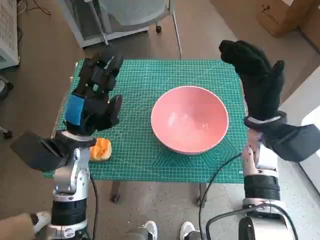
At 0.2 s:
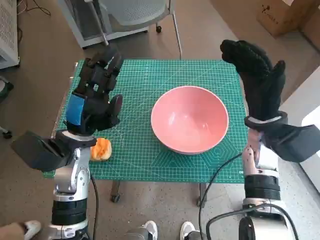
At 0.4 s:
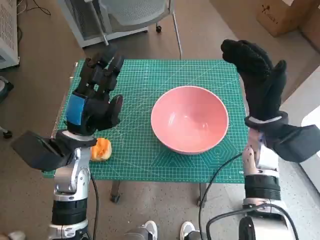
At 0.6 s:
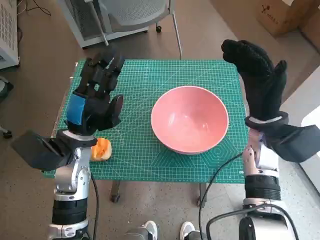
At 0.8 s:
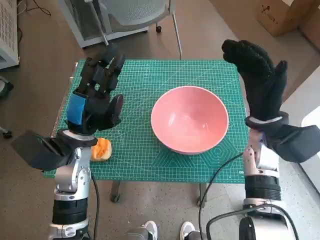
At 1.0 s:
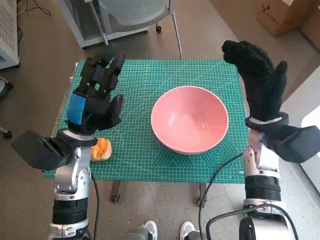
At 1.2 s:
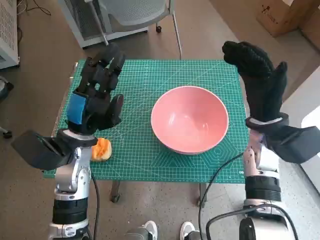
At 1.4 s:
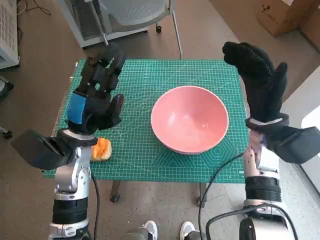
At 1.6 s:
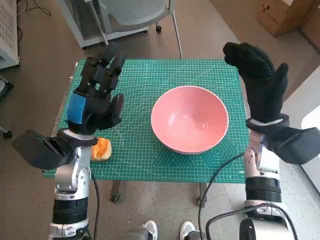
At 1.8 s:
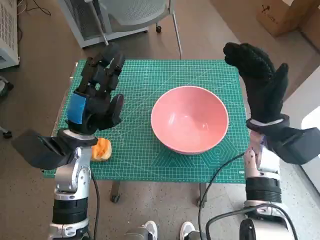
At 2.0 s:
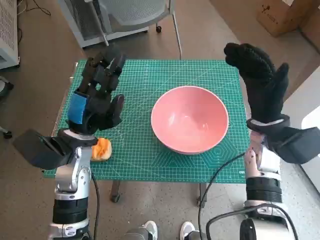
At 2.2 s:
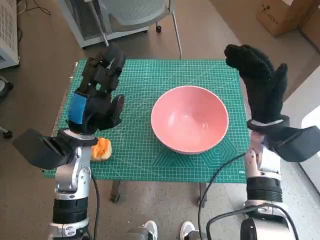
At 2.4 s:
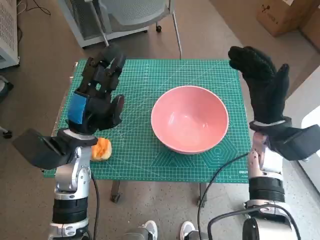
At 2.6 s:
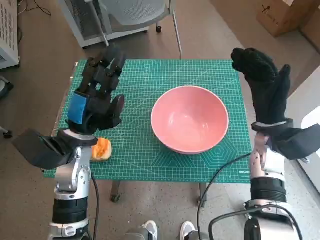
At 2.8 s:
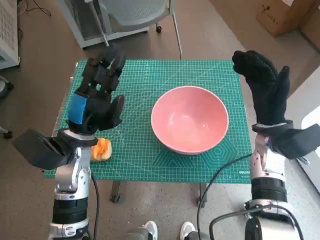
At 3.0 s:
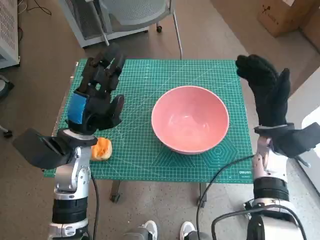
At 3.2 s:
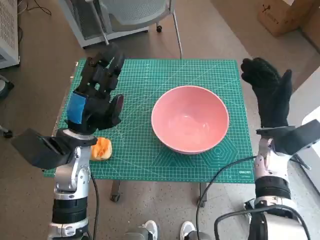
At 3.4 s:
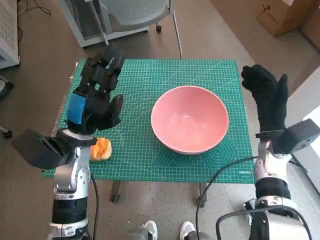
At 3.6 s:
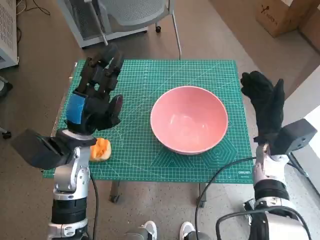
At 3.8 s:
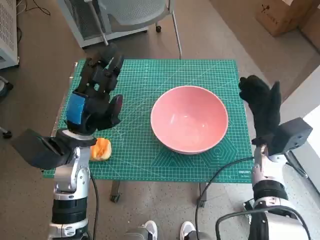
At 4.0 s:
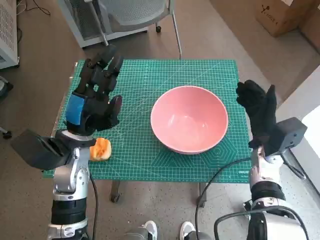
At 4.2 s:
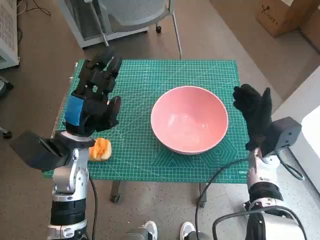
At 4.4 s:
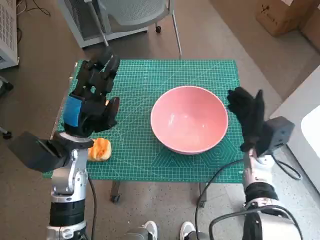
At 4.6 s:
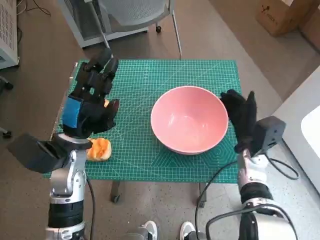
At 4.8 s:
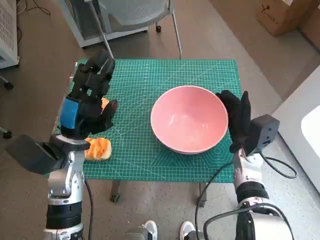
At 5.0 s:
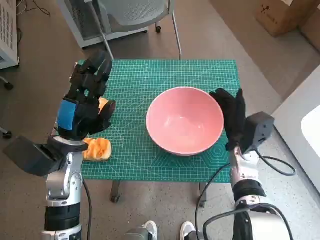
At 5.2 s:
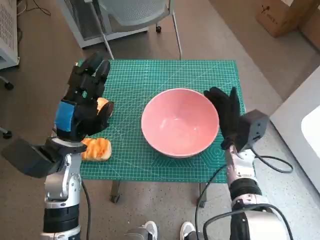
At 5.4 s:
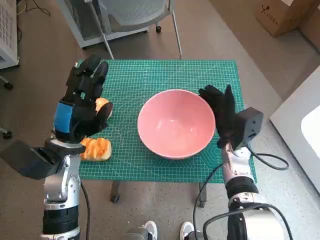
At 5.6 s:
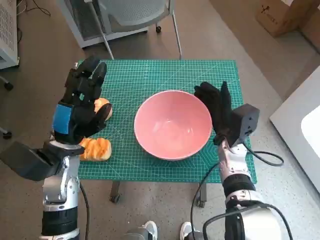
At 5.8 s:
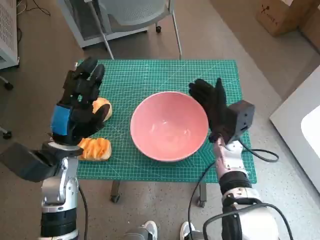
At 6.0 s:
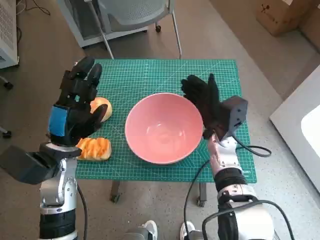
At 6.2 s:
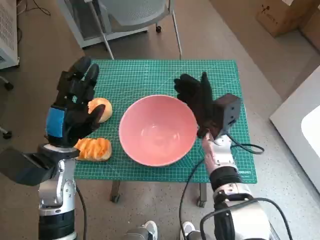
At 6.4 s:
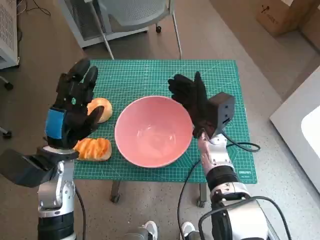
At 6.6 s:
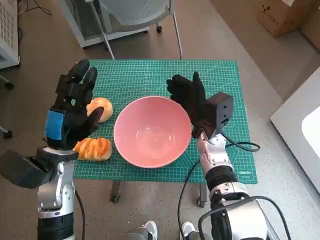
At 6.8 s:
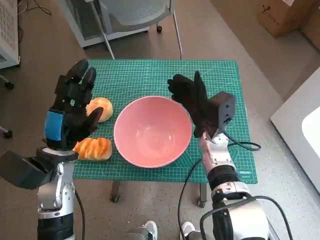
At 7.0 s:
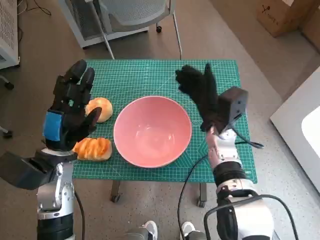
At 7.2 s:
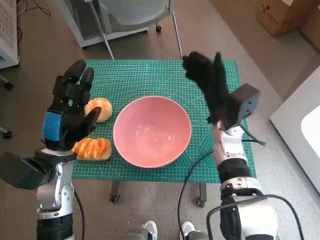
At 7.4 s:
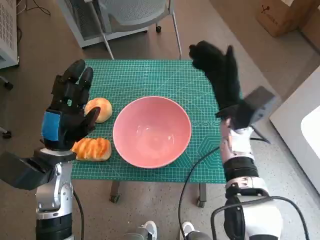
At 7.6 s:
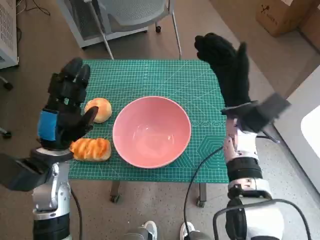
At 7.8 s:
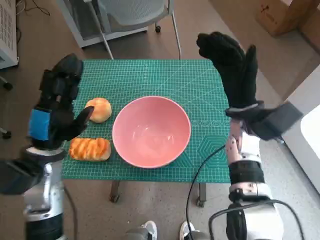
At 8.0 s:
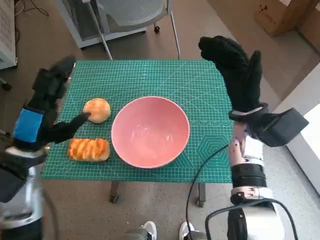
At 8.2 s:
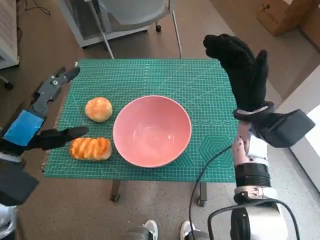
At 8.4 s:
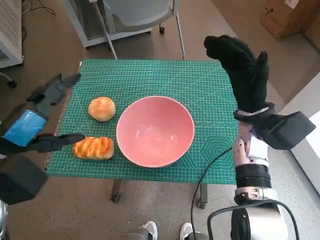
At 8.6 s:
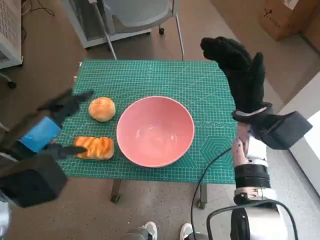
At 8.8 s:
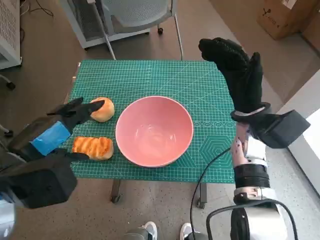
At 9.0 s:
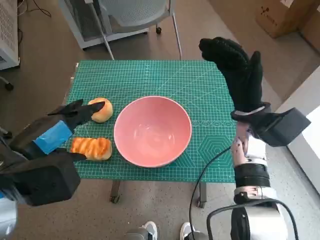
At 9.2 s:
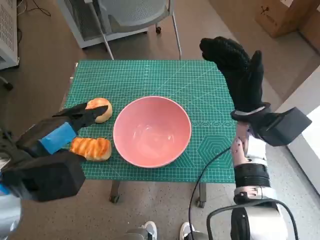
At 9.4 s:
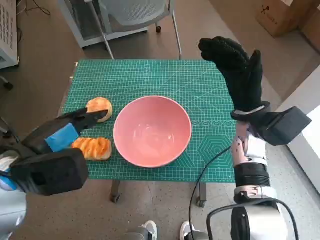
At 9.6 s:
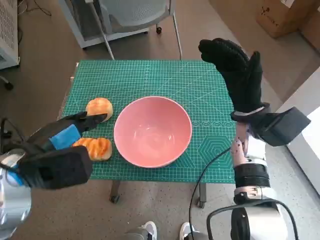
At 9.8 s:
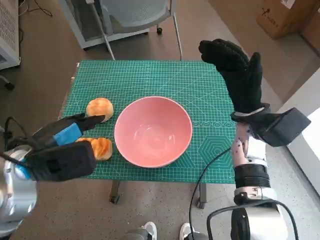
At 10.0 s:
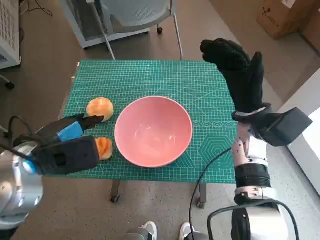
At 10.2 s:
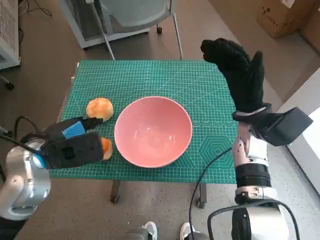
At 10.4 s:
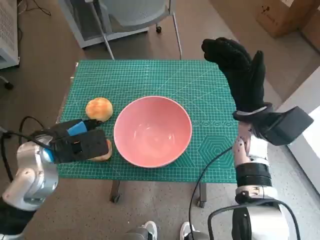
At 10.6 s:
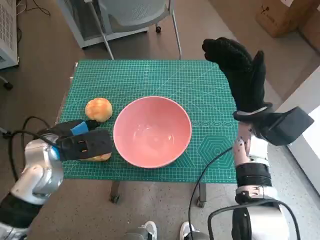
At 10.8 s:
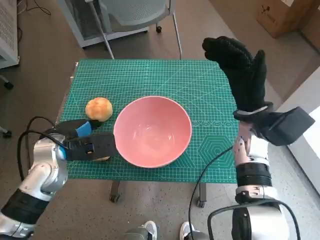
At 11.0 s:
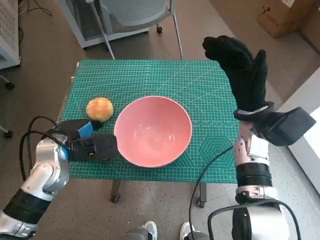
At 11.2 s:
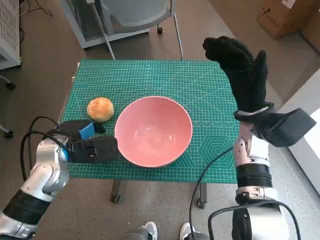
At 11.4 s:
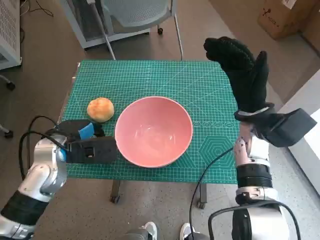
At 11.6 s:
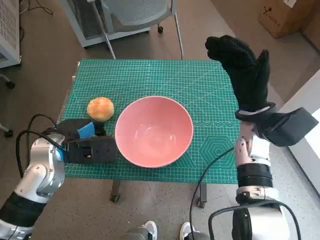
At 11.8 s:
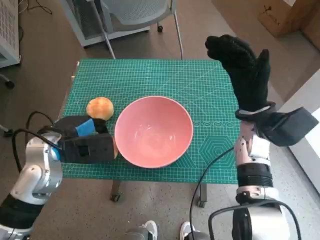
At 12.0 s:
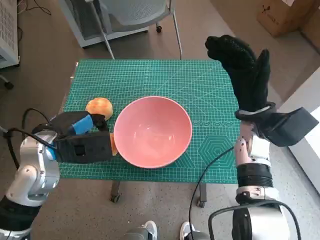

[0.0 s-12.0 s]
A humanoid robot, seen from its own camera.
Step, 0.0 to 6.8 s: Move the pink bowl to the center of table with right hand.
Step, 7.0 to 11.4 s: Grasp the long bread with left hand.
1.6 to 3.0 s: There are only small adjustments of the hands.
3.0 to 4.4 s: The right hand moves downward, approximately 5 cm.
4.4 to 6.0 s: The right hand travels to the left by roughly 10 cm.
6.0 to 7.6 s: The right hand moves upward, about 5 cm.
7.6 to 9.0 s: The left hand is displaced upward and backward by some 10 cm.
9.0 to 10.4 s: The left hand is displaced downward and forward by approximately 10 cm.
10.4 to 12.0 s: The hands make only small movements.

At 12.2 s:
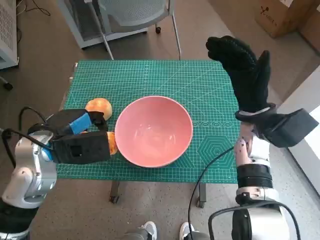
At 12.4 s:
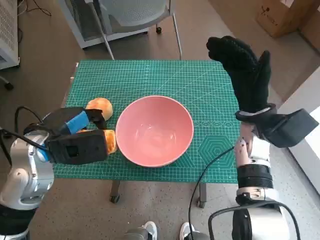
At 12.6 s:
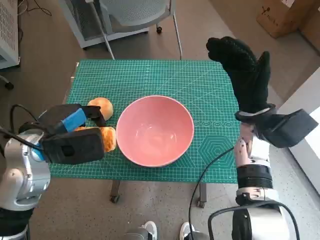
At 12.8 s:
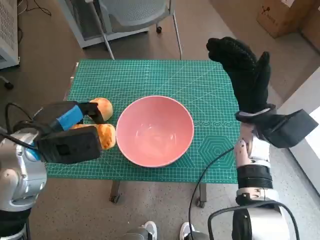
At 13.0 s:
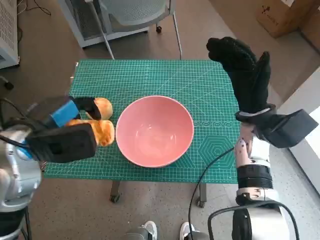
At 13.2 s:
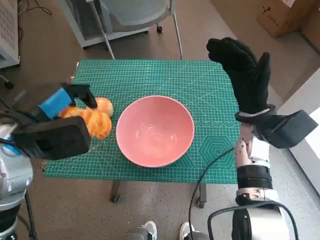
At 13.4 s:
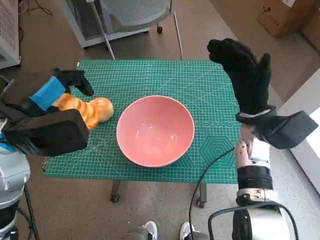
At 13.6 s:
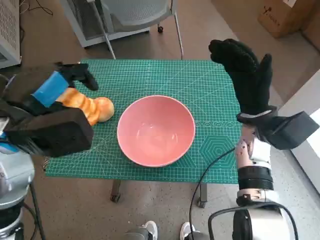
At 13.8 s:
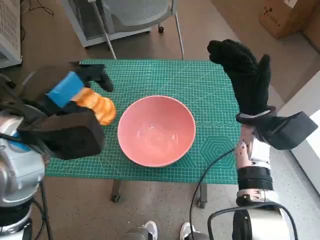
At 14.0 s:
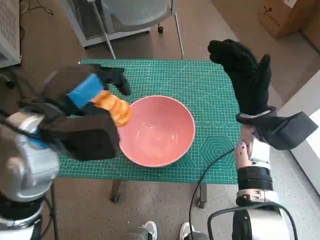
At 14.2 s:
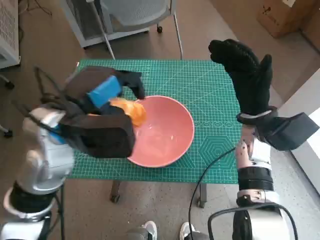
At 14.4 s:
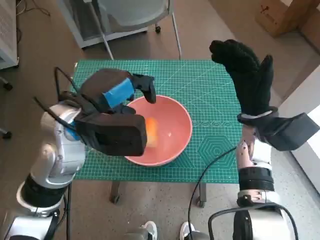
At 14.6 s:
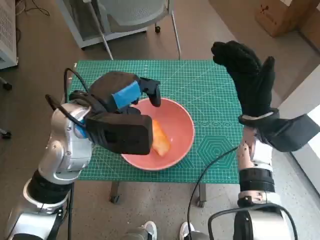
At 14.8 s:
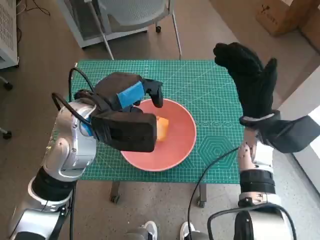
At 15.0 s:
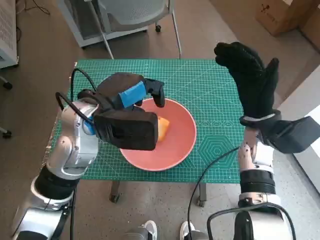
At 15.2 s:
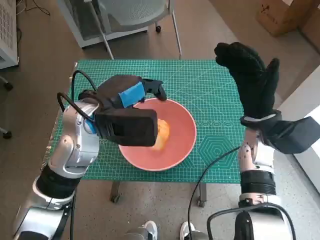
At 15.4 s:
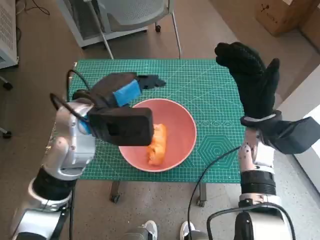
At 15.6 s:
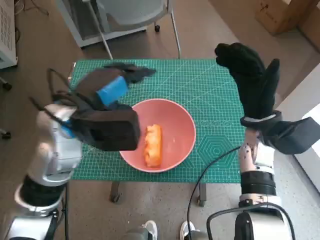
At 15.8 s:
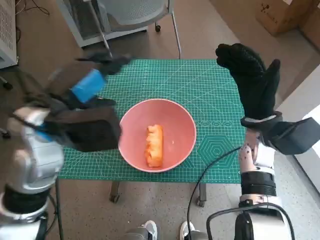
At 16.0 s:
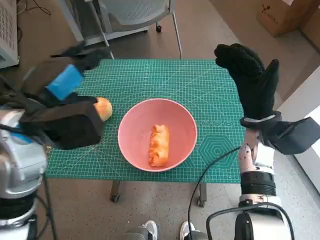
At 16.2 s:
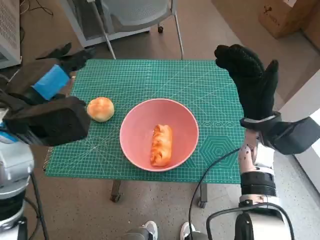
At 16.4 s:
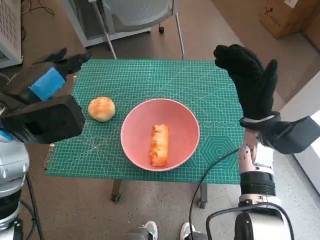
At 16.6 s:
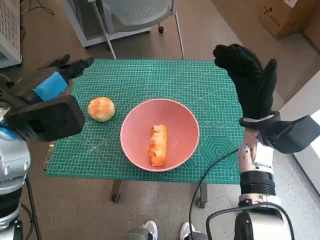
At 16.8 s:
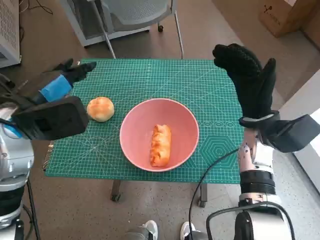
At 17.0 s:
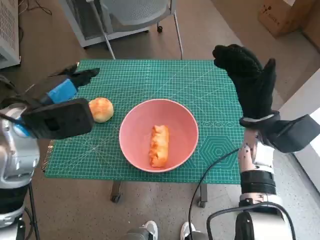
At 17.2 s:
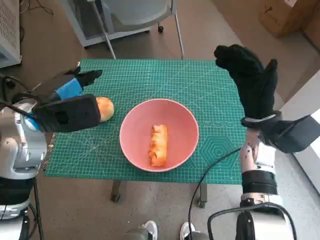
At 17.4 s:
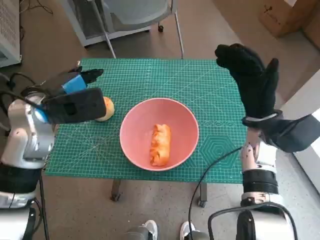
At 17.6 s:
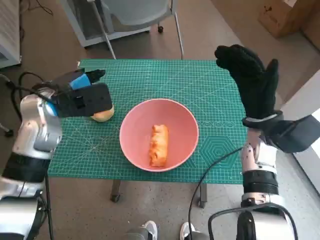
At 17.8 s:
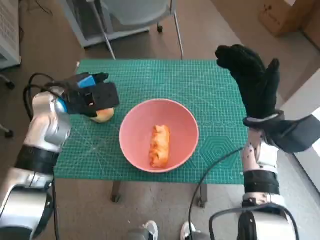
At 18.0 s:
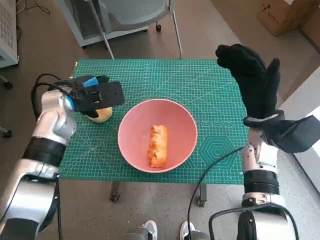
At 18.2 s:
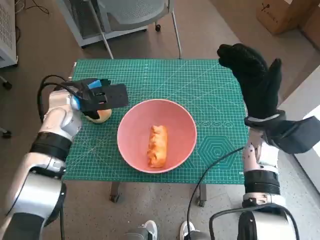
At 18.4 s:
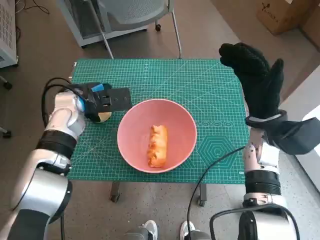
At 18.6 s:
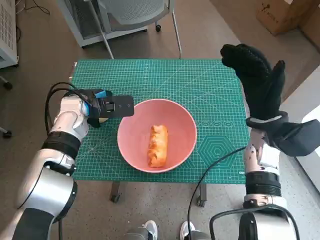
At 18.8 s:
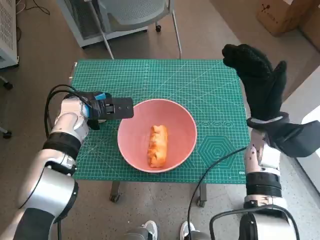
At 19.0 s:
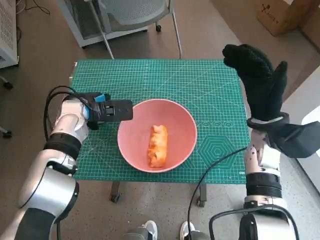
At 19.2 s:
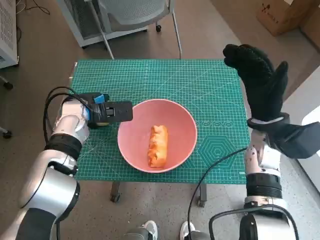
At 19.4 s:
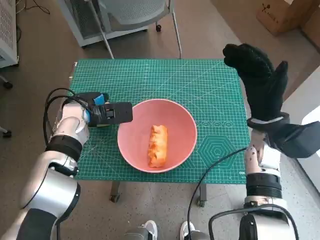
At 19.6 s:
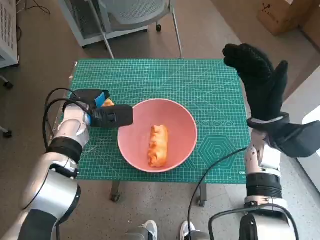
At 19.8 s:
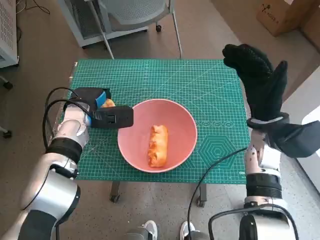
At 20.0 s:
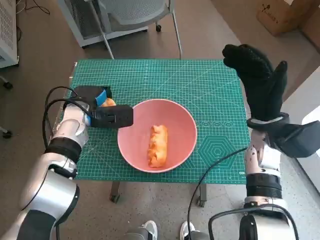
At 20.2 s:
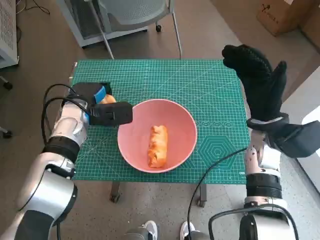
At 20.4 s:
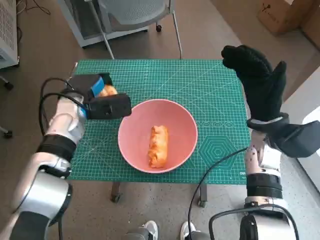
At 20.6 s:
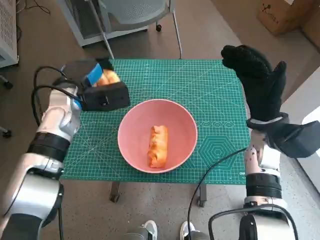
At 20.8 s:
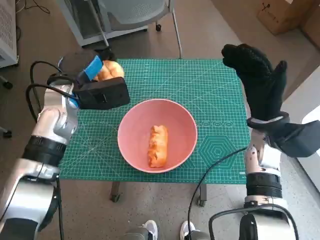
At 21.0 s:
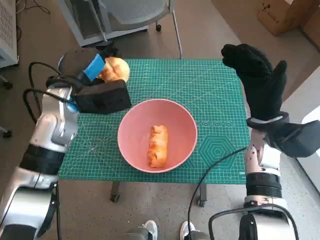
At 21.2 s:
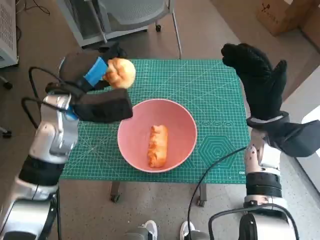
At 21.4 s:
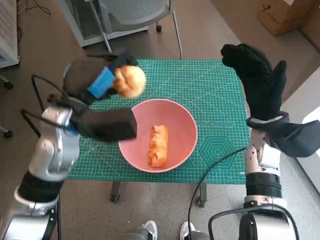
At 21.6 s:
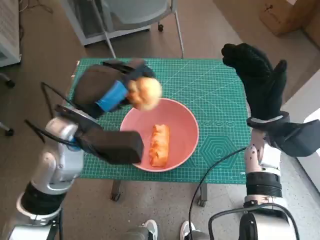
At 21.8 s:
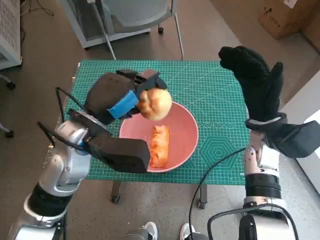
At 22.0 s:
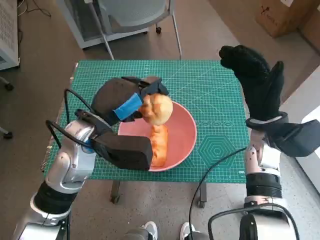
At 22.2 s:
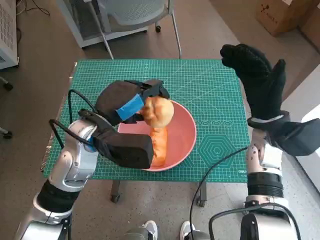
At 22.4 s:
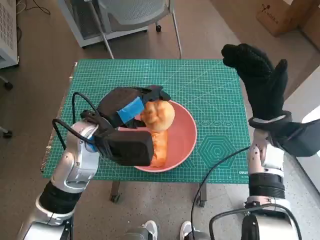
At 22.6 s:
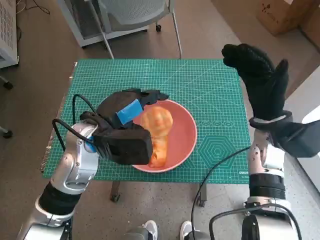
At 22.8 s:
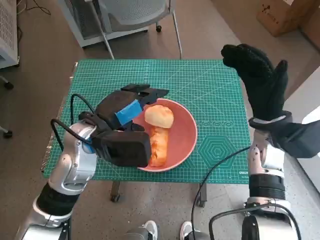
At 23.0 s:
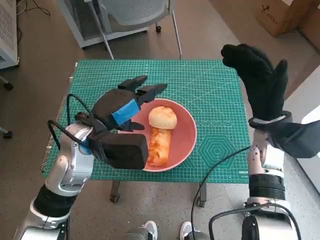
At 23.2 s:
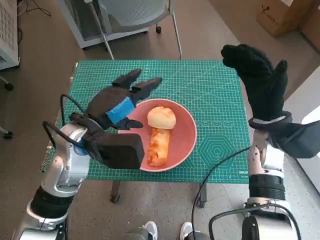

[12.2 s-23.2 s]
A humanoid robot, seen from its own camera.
Step, 12.2 to 14.6 s: Place the long bread in pink bowl with left hand.
Step, 14.8 to 19.4 s: Grasp the round bread with left hand.
Step, 19.6 to 22.8 s: Place the round bread in pink bowl with left hand.
12.2 to 13.8 s: The left hand goes about 10 cm upward.
13.8 to 15.4 s: The left hand goes approximately 10 cm to the right and forward.
15.4 to 17.0 s: The left hand goes about 10 cm to the left.
17.0 to 18.4 s: The left hand goes about 10 cm forward and downward.
18.4 to 20.0 s: The hands stay close to where they were, moving slightly.
20.0 to 21.6 s: The left hand is displaced upward and backward by about 15 cm.
